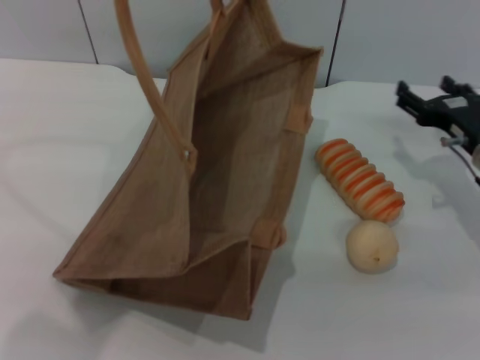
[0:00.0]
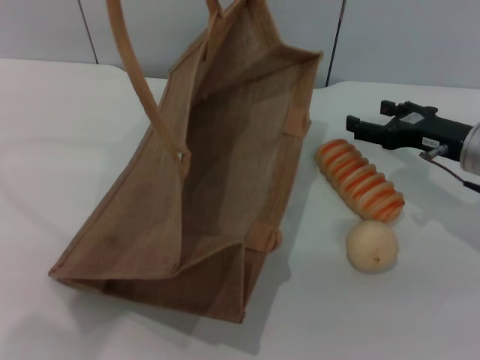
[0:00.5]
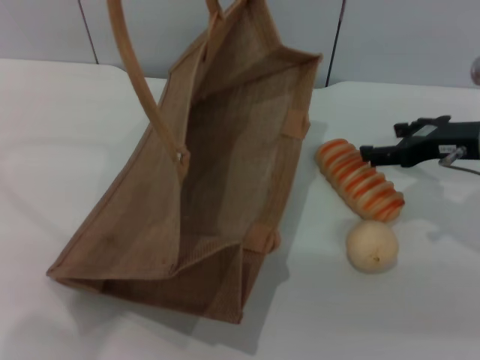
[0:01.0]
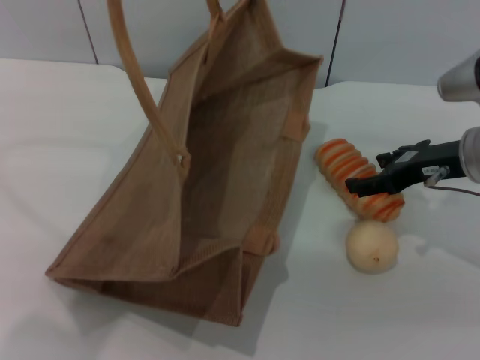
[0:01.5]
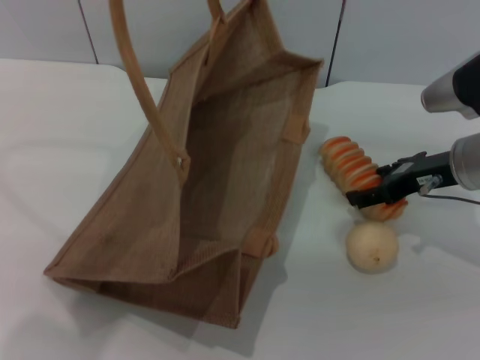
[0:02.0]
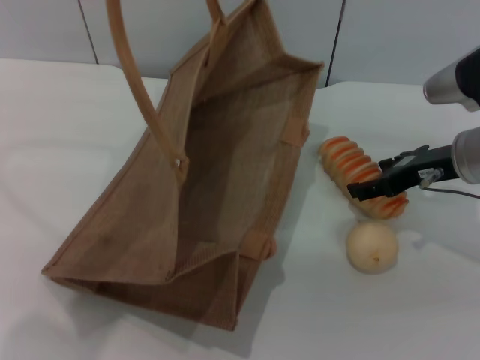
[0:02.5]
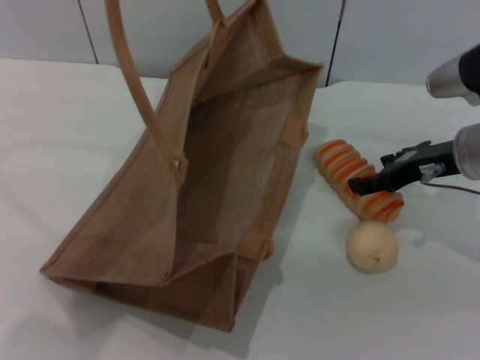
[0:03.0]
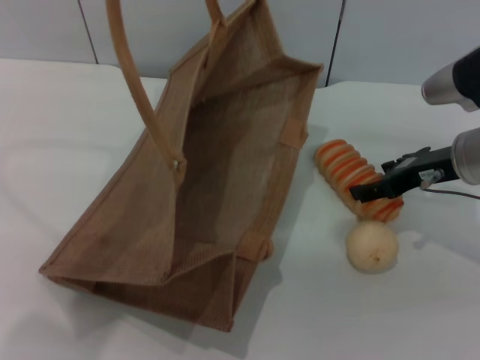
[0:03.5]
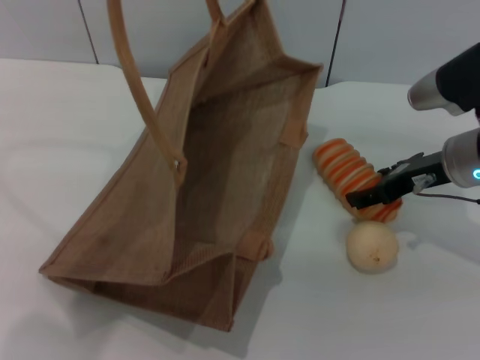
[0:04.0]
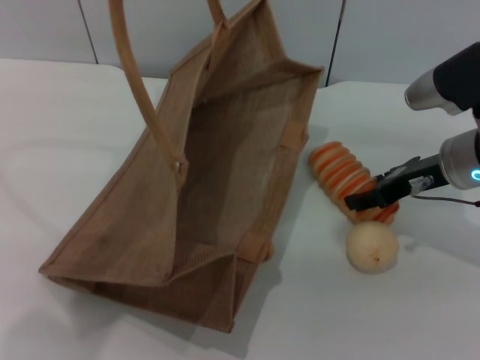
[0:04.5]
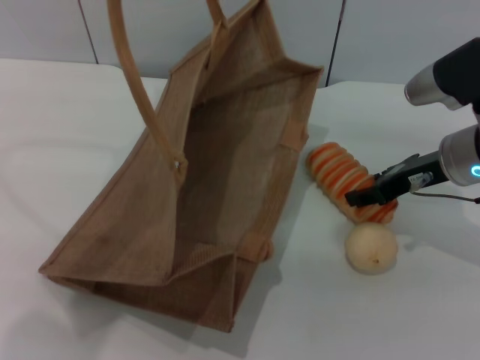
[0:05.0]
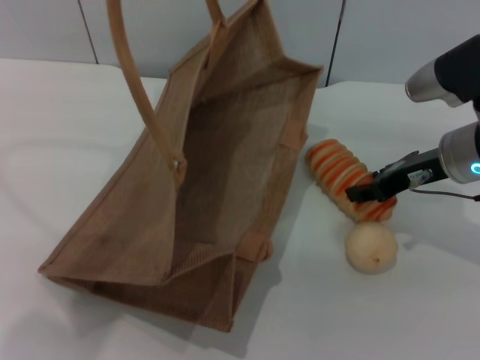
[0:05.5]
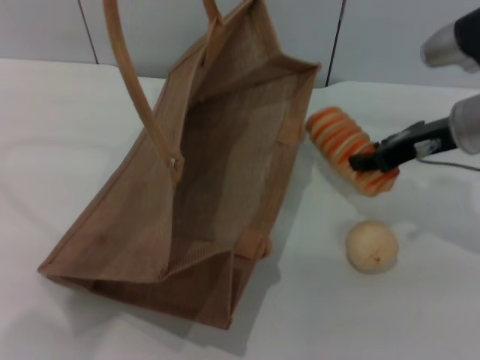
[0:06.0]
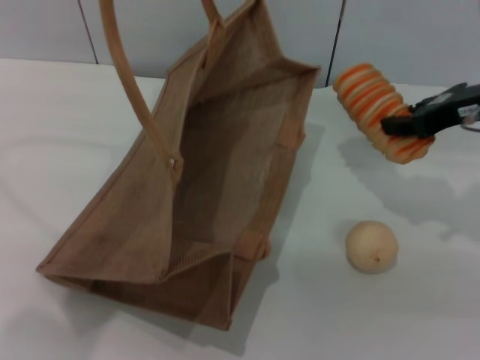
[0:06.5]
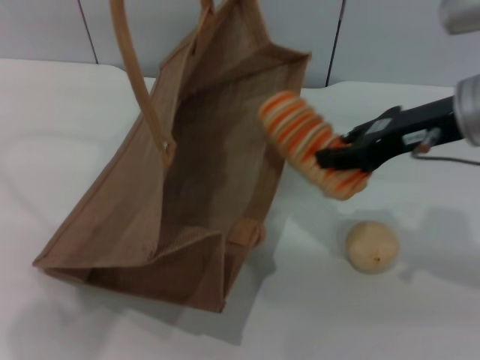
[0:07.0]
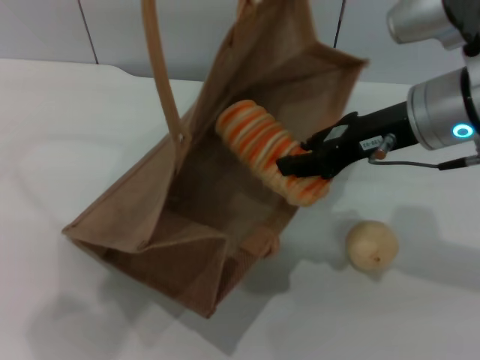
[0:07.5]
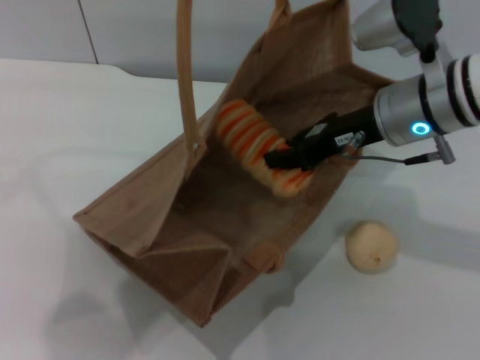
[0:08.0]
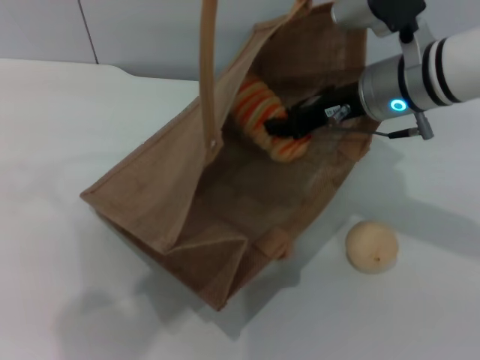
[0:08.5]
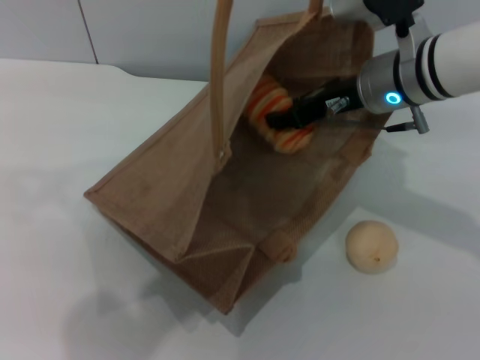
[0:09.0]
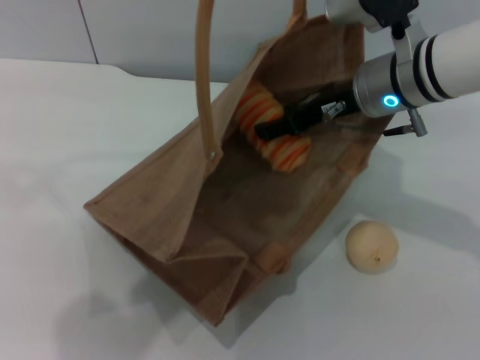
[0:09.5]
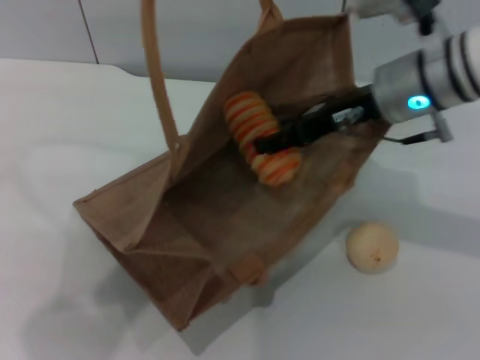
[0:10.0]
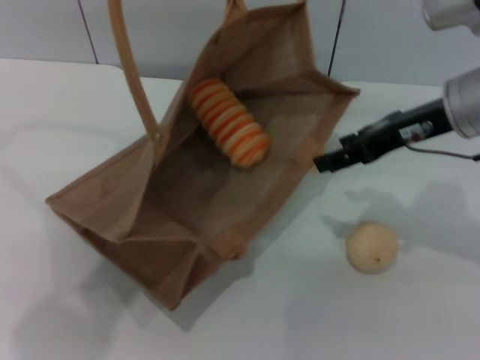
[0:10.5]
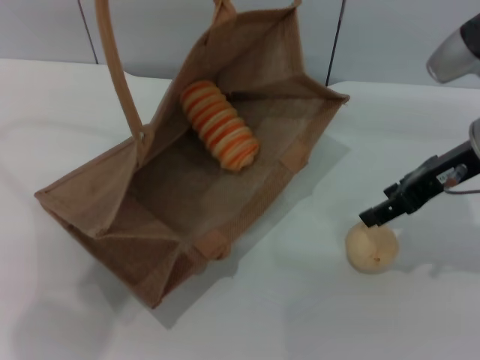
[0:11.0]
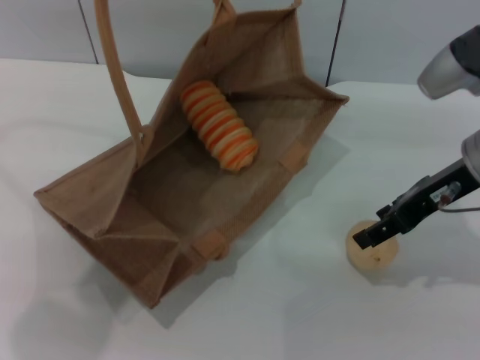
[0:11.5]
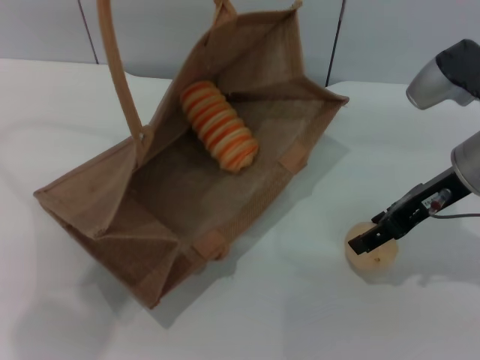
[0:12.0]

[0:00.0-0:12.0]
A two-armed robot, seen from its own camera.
Task of the whole recording: pick up the bread and egg yolk pastry from the table and place it in the brown handbag.
Step, 0:00.0 to 0:06.0: Pick up the bread with the right gripper.
0:00.0 to 0:02.0: The right gripper travels upward by some 5 cm.
0:02.0 to 0:04.0: Both grippers stay about where they are.
0:04.0 to 0:06.0: The right gripper closes up.
0:06.0 to 0:08.0: The left gripper is displaced to the right by some 5 cm. The right gripper heads to the left, covering some 5 cm.
0:08.0 to 0:10.0: The right gripper opens.
0:10.0 to 0:12.0: The right gripper is displaced to the right by about 5 cm.

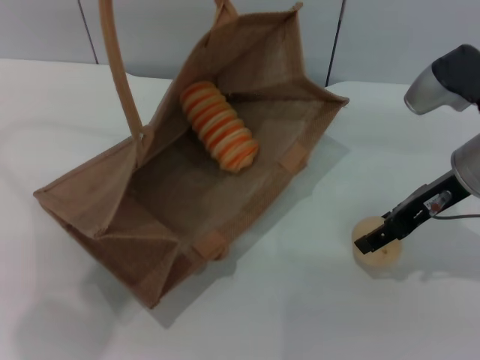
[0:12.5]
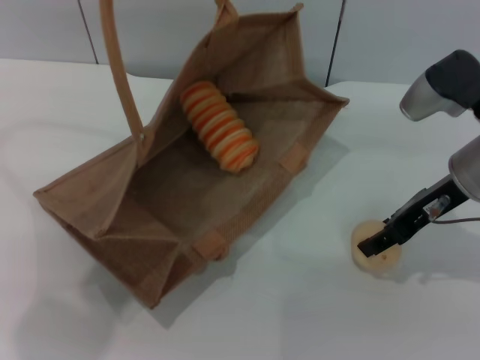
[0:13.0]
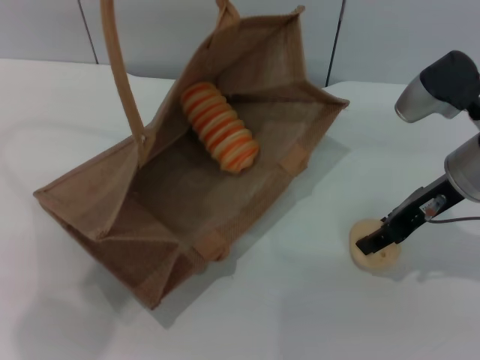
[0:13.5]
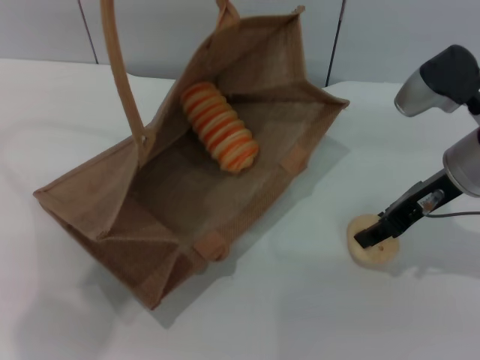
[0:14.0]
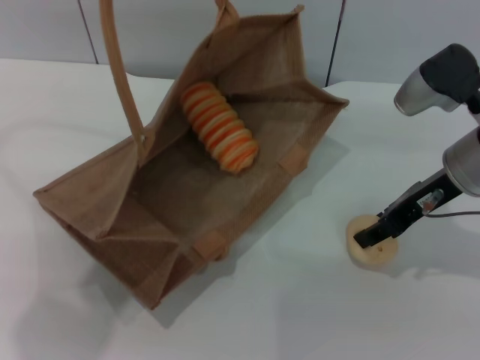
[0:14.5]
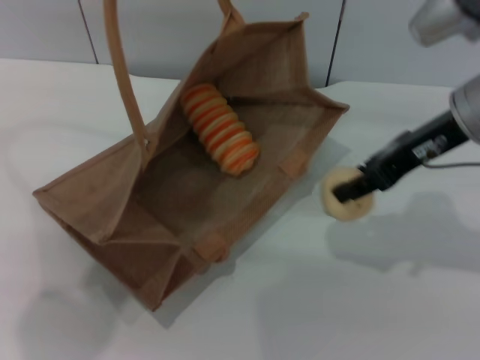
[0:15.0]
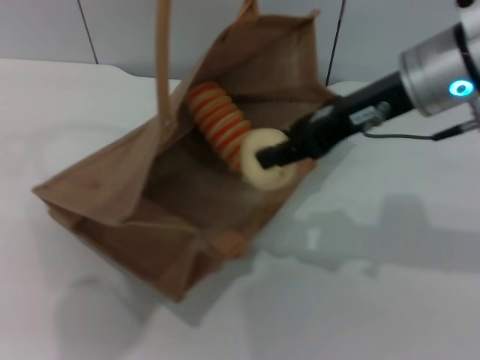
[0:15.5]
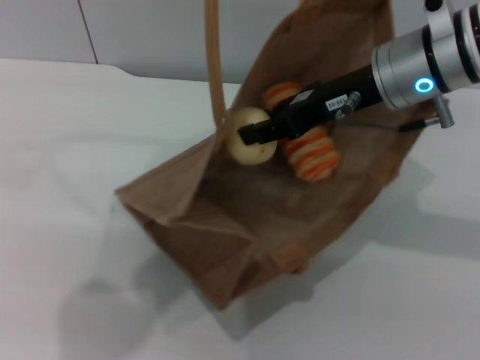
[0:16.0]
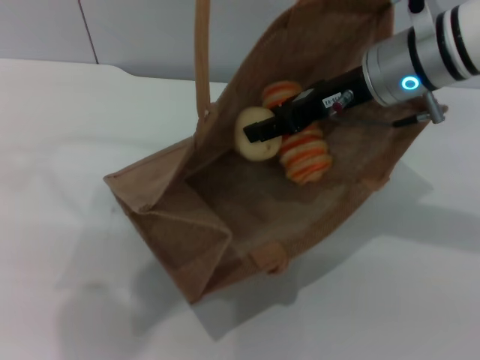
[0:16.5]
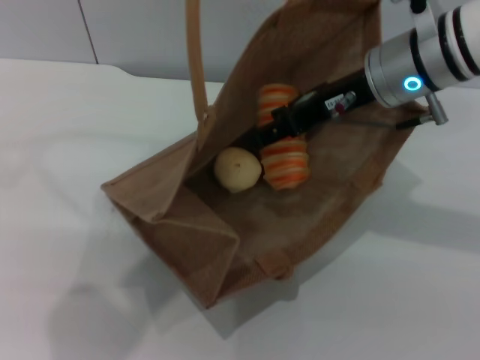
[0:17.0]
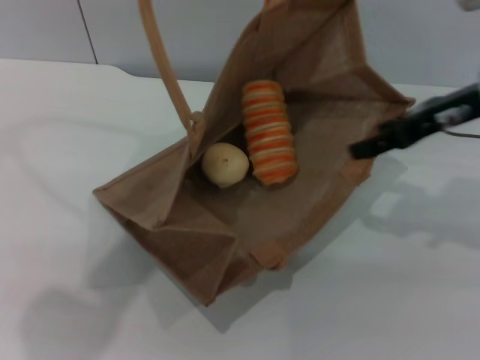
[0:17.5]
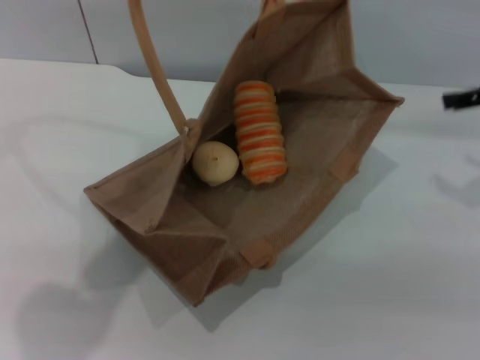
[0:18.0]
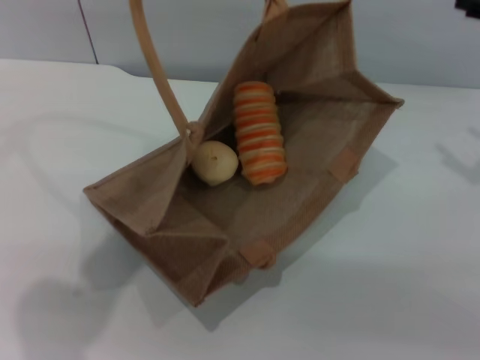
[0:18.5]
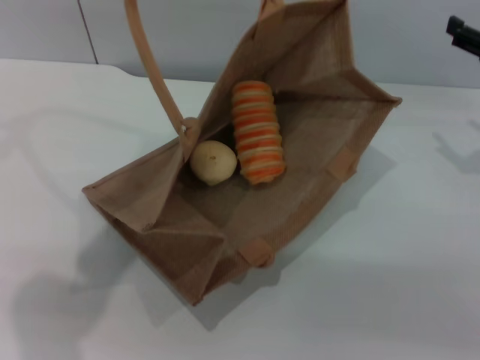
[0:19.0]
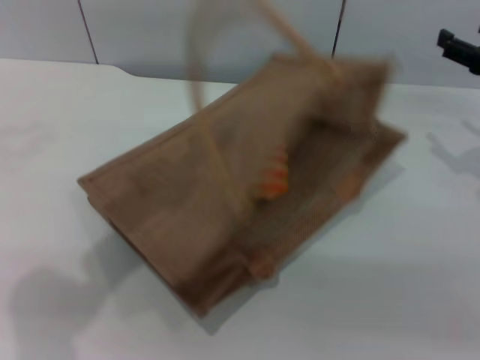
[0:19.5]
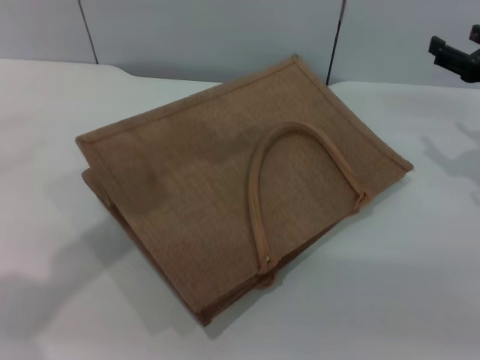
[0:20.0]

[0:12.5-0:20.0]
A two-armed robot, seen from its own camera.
Task of the whole recording: pick up the bread and egg yolk pastry from the table and place it in the brown handbag.
Step, 0:12.5 to 0:15.0: Pick up the egg yolk pastry with the right gripper.
Step, 0:15.5 to 0:17.0: Place the egg yolk pastry into the woven bag with the right gripper.
Step, 0:18.0 to 0:18.5: Lower the woven bag with the left gripper to close it.
0:12.5 to 0:14.5: The right gripper closes its fingers.
0:14.5 to 0:16.5: The left gripper is displaced to the right by about 5 cm. Meanwhile the right gripper shifts some 10 cm to the left and upward.
0:16.5 to 0:18.0: The right gripper shifts approximately 15 cm to the right, and opens its fingers. The left gripper travels to the left by roughly 5 cm.
0:18.0 to 0:20.0: The right gripper shifts about 10 cm downward. Meanwhile the left gripper changes place by approximately 5 cm, and opens.
